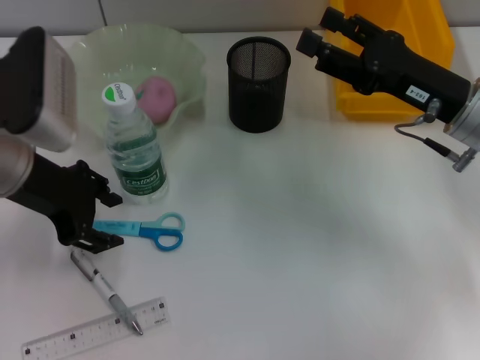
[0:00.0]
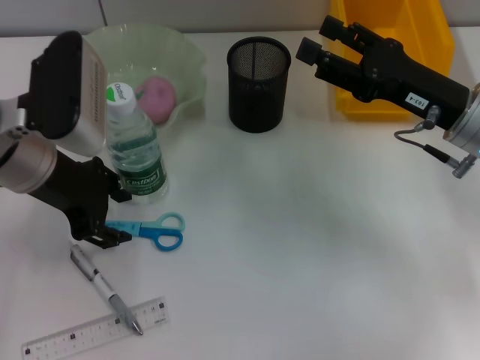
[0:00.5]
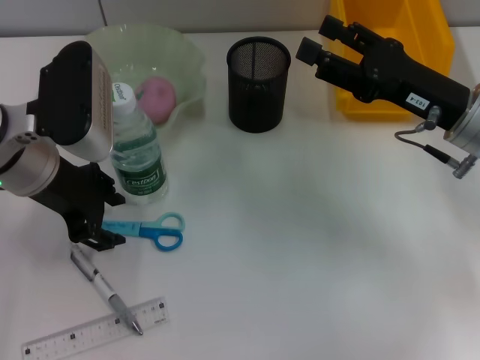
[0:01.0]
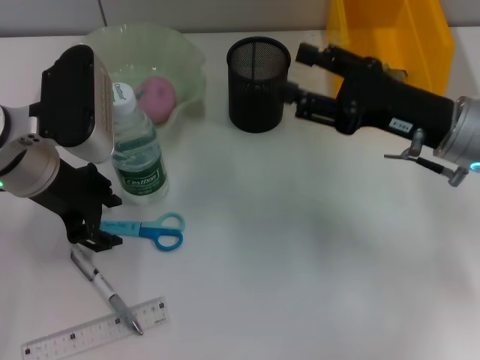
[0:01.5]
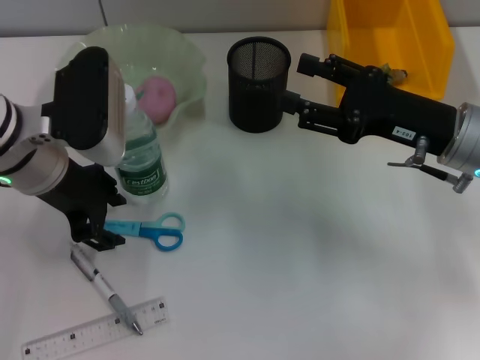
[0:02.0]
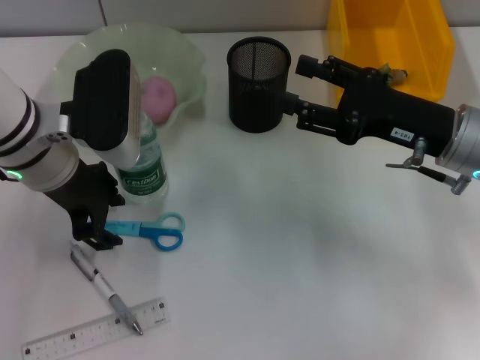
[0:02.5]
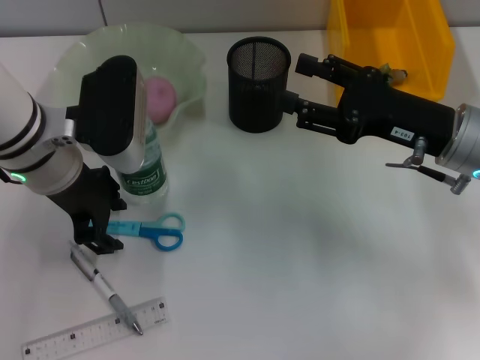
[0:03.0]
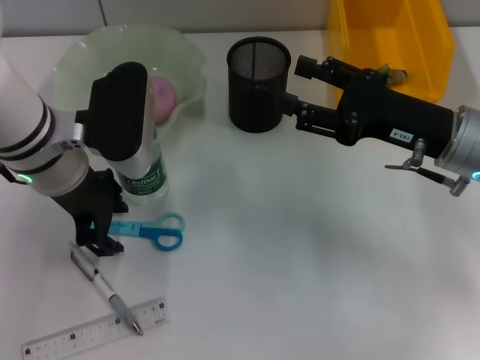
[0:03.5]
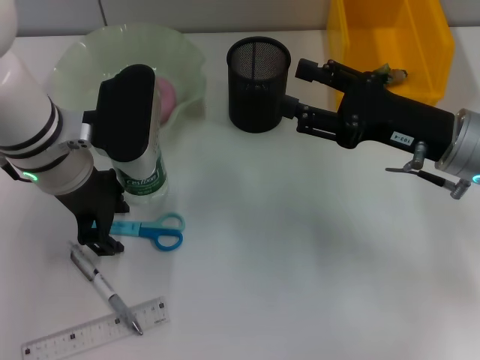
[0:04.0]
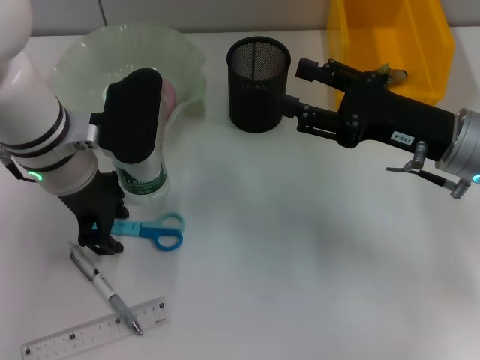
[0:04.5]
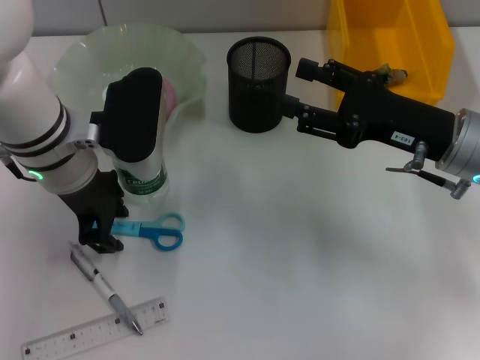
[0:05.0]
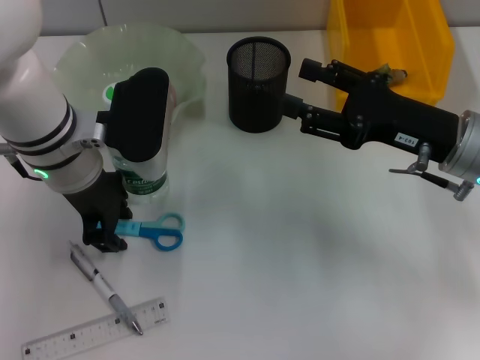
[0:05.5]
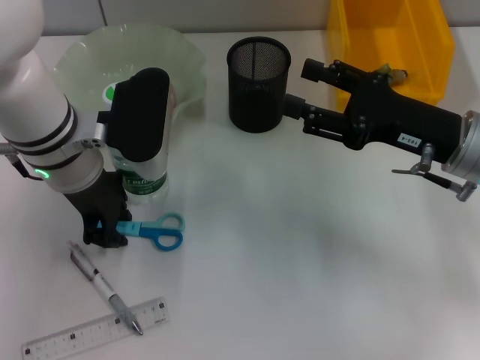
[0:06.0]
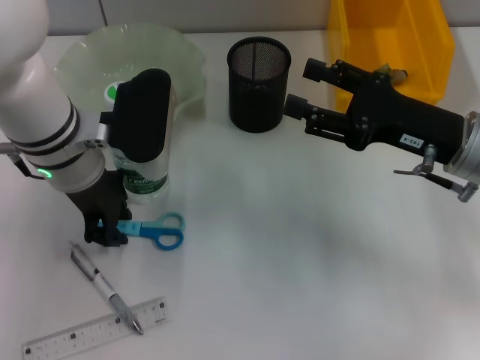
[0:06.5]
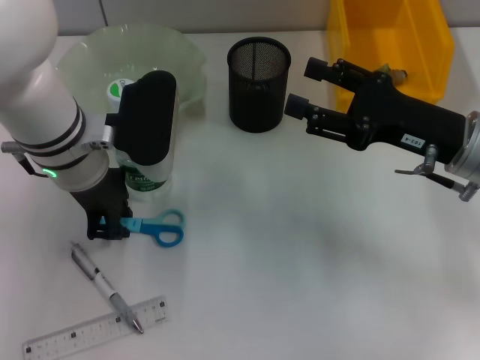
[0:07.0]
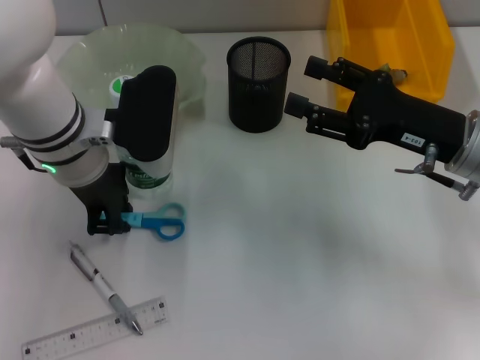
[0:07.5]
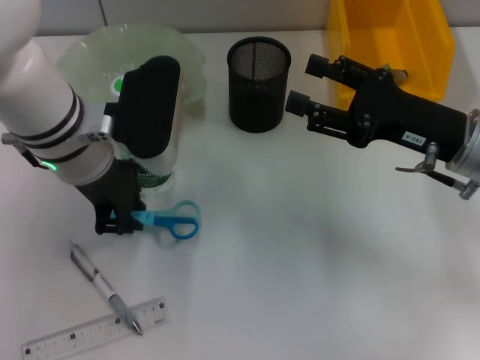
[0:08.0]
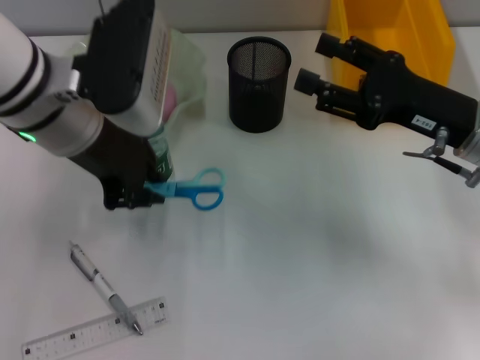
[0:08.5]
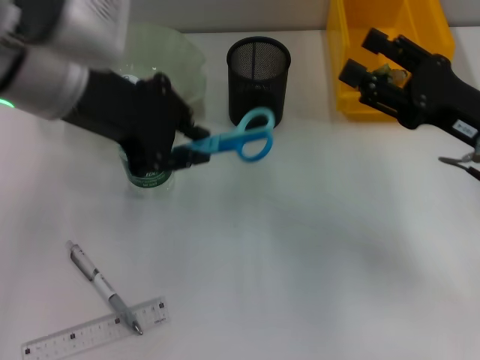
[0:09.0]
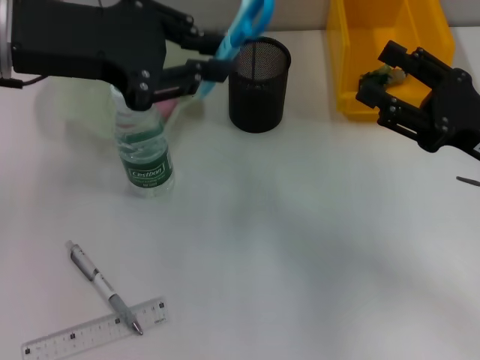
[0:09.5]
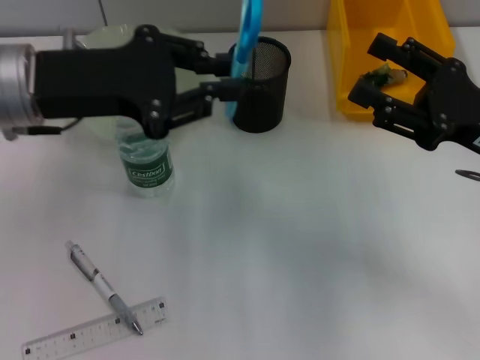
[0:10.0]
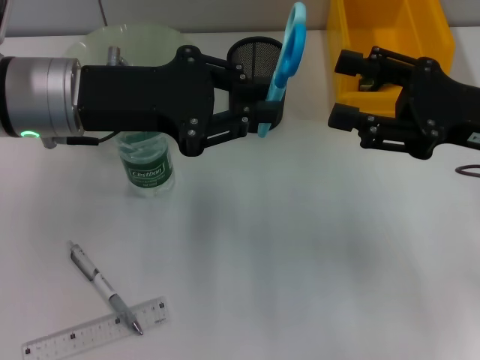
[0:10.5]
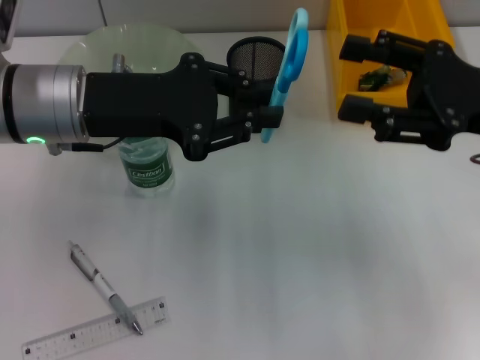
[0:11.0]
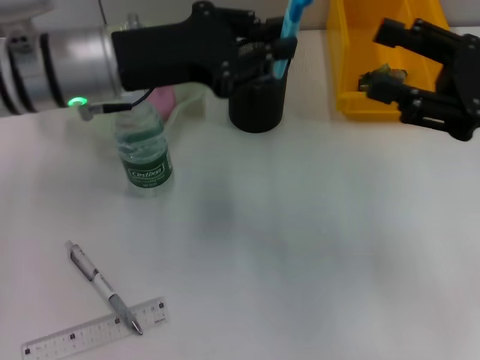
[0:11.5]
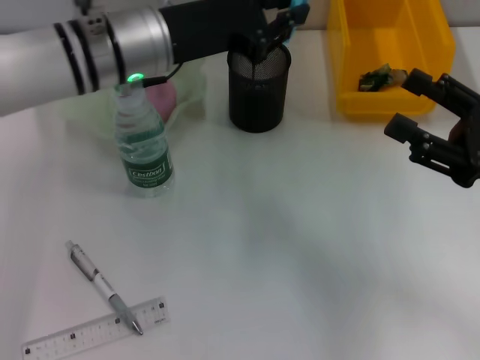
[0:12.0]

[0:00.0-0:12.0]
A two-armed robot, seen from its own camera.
Step, 0:00.0 to 0:07.5: Grab the blue scissors with the left hand.
0:00.0 to 0:02.0: The grippers move only a little.
0:02.0 to 0:04.0: The grippers stay close to where they were, moving slightly.
0:04.0 to 0:06.0: The left gripper closes up.
0:06.0 to 0:08.0: There are only small adjustments of the grippers.
0:08.0 to 0:10.0: The left gripper heads to the left, covering some 5 cm.
0:10.0 to 0:12.0: The left gripper travels to the right and forward by about 10 cm.

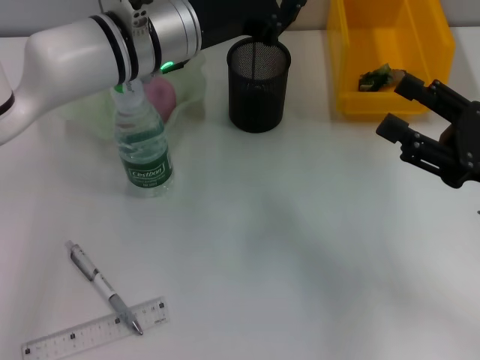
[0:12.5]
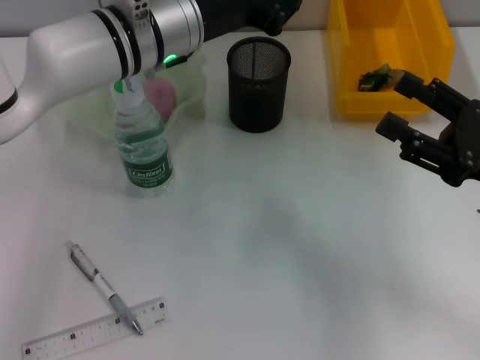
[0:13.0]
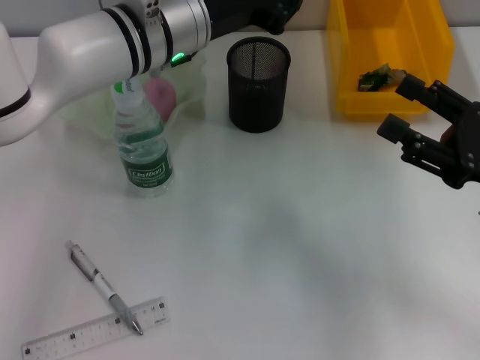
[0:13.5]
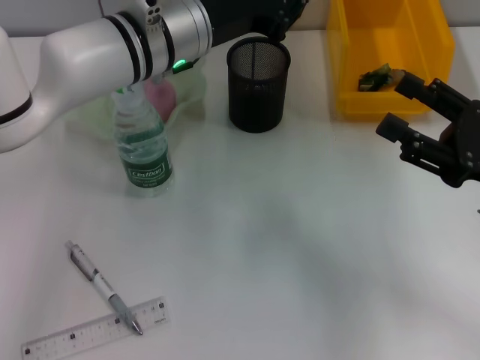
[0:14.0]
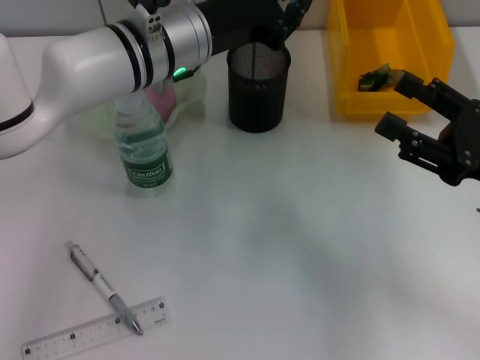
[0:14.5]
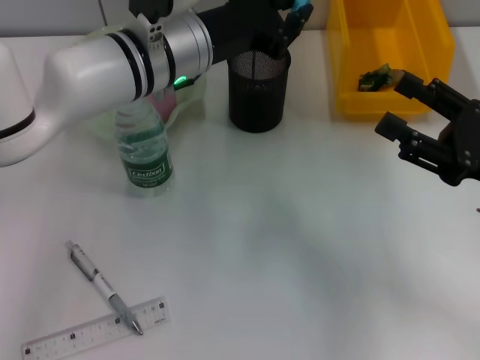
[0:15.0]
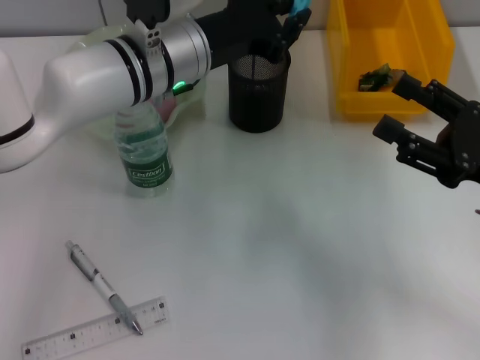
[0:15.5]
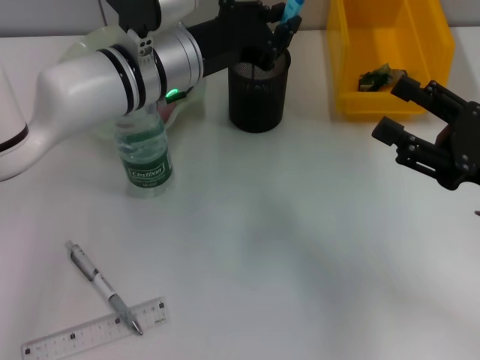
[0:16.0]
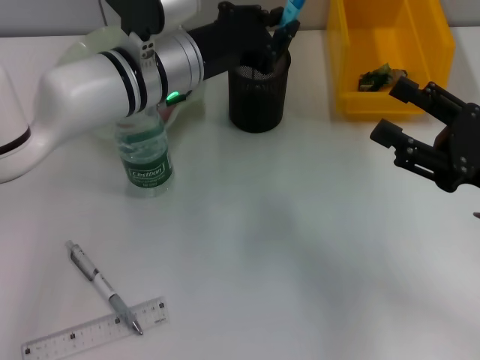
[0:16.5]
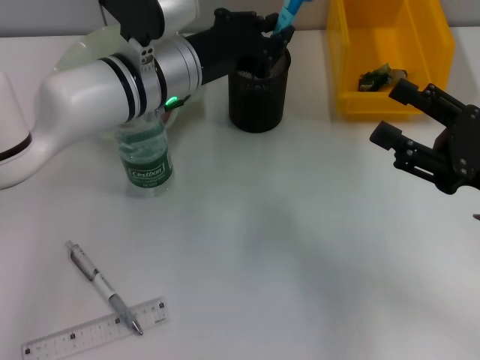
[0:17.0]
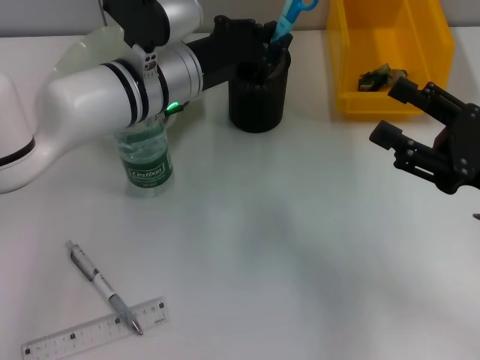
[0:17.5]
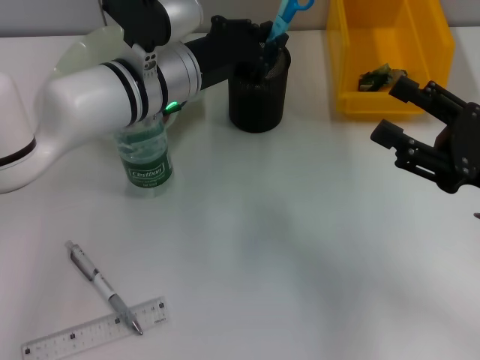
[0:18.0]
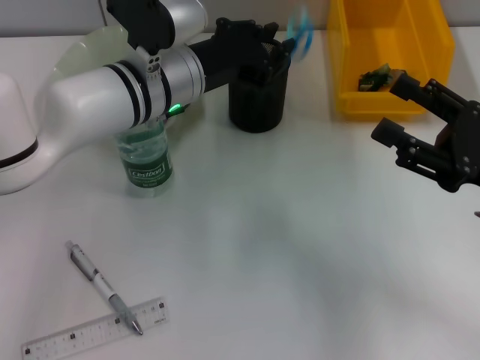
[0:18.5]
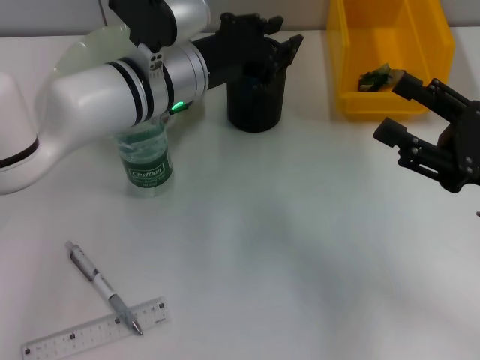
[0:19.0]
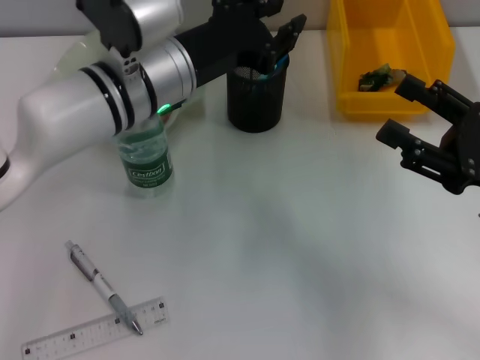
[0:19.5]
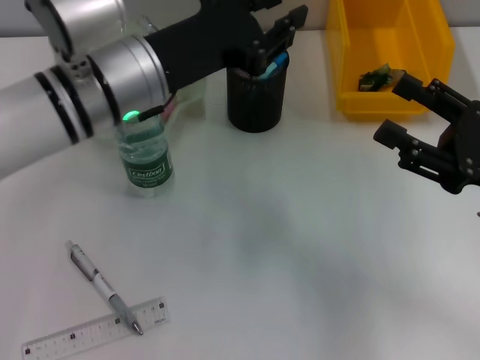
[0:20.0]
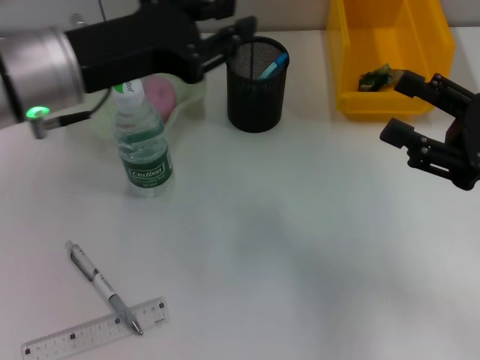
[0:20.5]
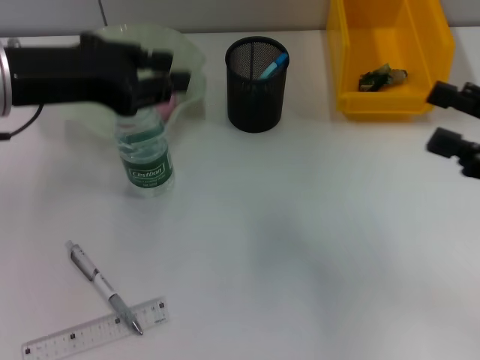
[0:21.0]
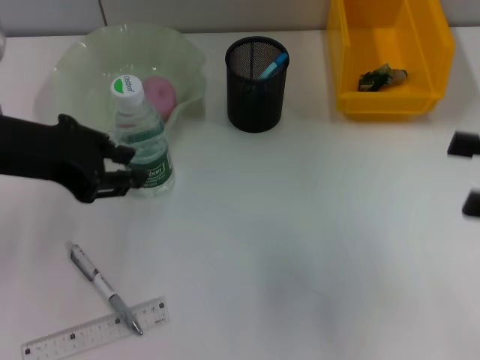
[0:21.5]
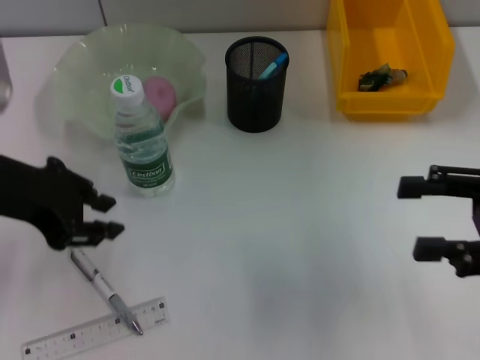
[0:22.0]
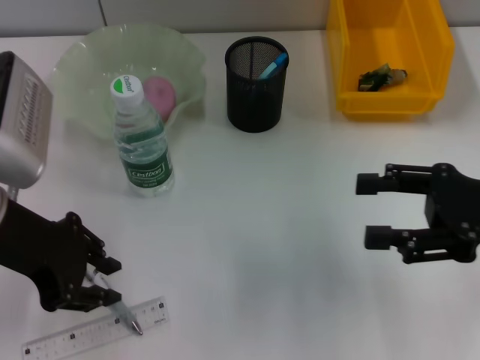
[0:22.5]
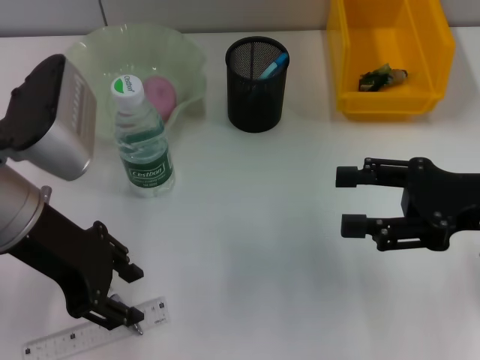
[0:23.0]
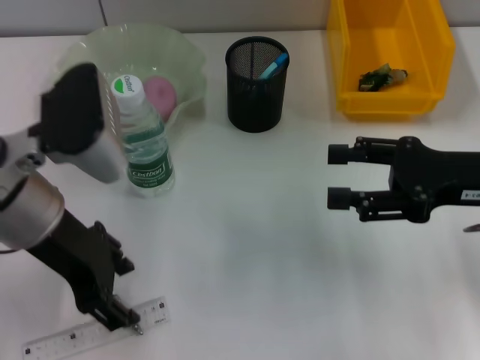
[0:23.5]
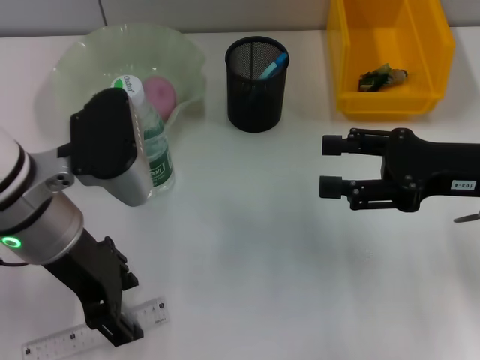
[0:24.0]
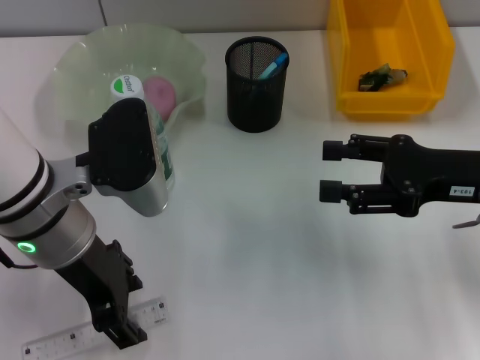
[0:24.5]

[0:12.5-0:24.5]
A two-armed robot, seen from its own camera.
Step, 0:12.5 to 0:19.0: Place the blue scissors into the pen holder with the left hand.
0:12.5 to 0:14.5: Both grippers stay put.
0:14.5 to 0:16.5: The grippers move only a little.
0:16.5 to 0:18.5: The two grippers keep their place.
0:18.5 to 0:20.5: The left gripper shifts about 15 cm to the left, upward and backward.
0:20.5 to 0:22.5: The left gripper moves roughly 5 cm.
0:22.5 to 0:24.5: The left gripper is displaced to the right by about 5 cm, and opens.

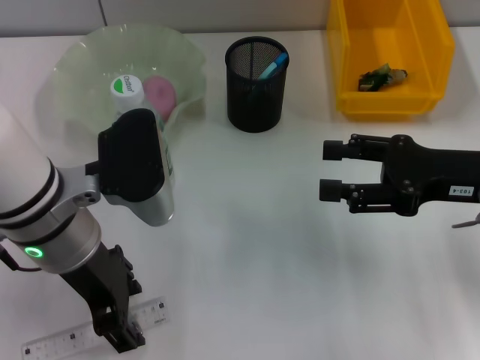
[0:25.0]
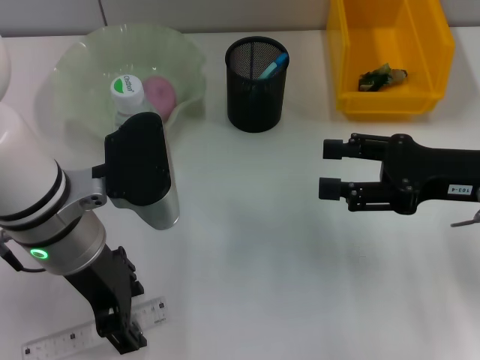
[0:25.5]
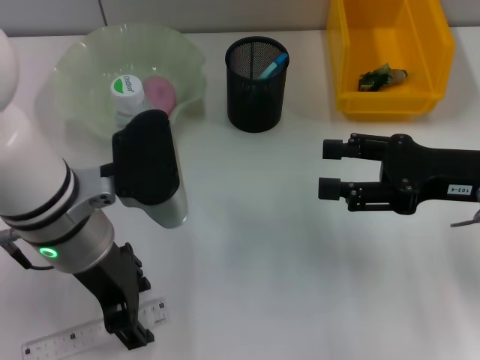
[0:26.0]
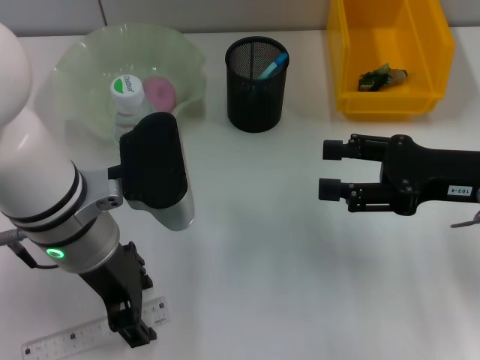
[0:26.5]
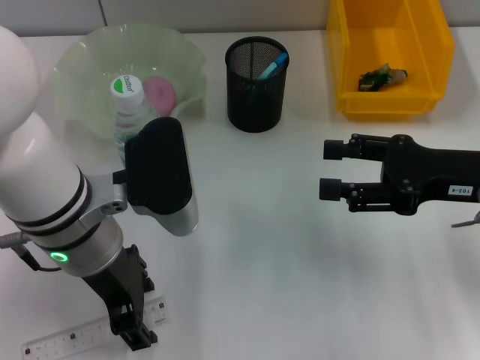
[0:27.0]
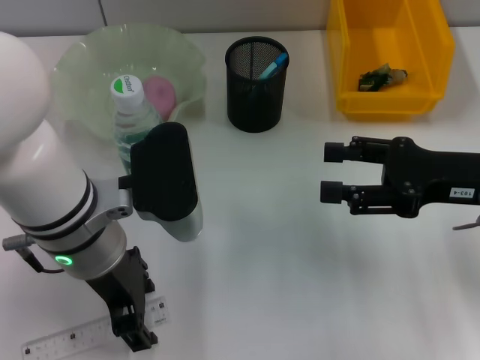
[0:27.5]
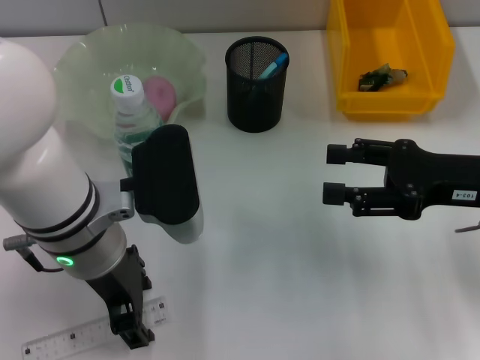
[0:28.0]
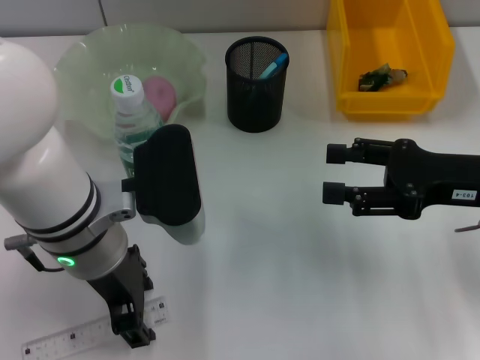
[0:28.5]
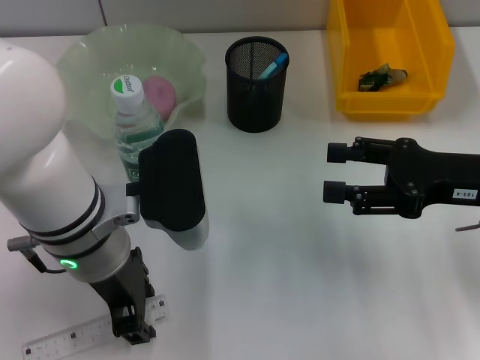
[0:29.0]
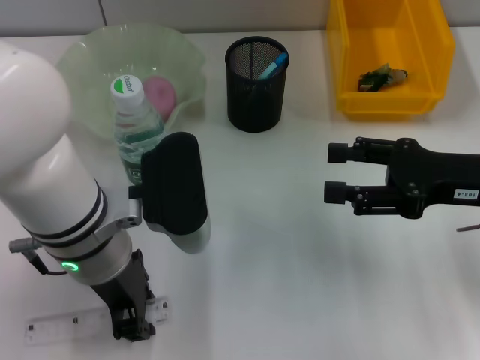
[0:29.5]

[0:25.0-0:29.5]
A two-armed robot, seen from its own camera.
0:25.0 to 0:27.0: The grippers move only a little.
0:27.0 to 0:29.5: The left gripper closes its fingers.
